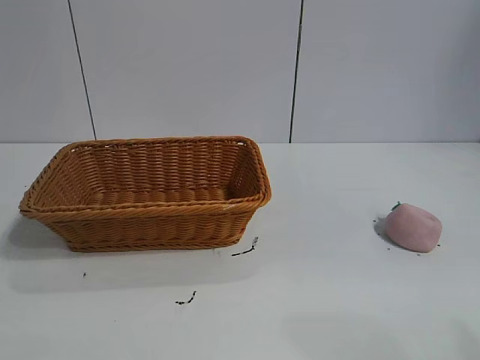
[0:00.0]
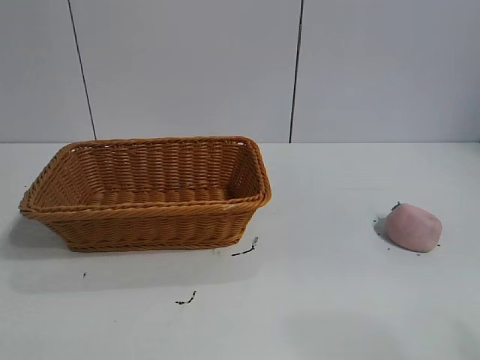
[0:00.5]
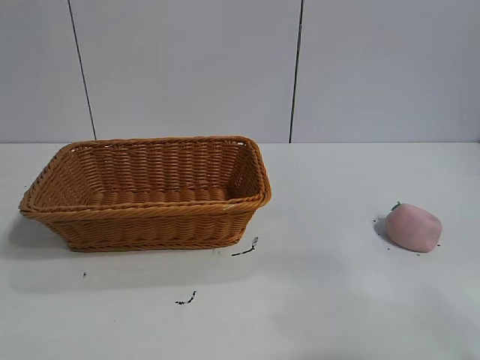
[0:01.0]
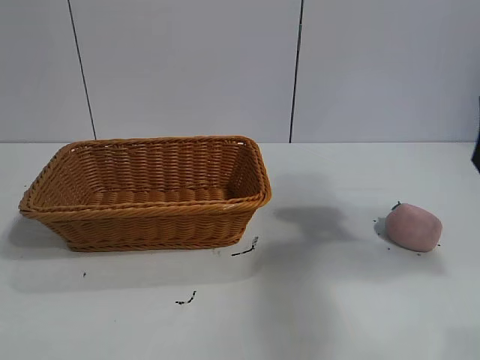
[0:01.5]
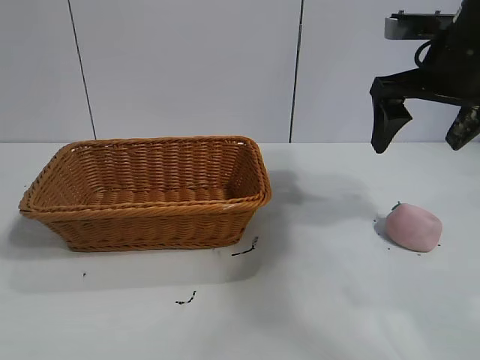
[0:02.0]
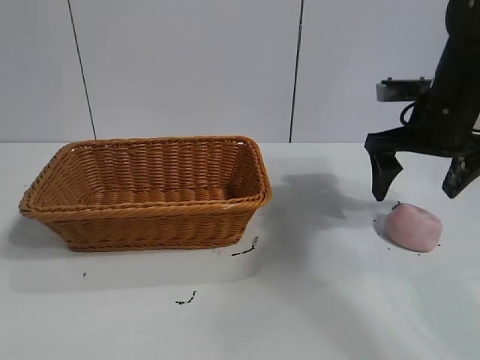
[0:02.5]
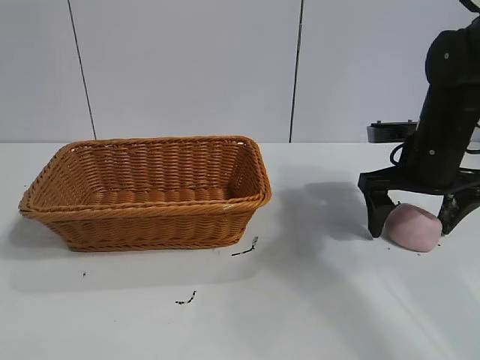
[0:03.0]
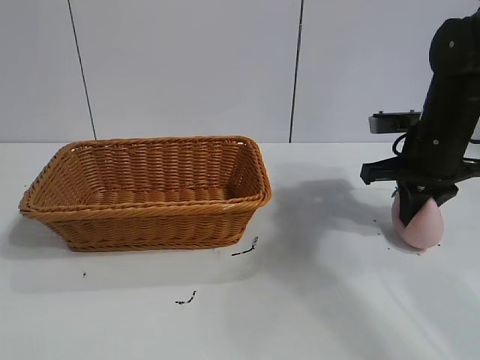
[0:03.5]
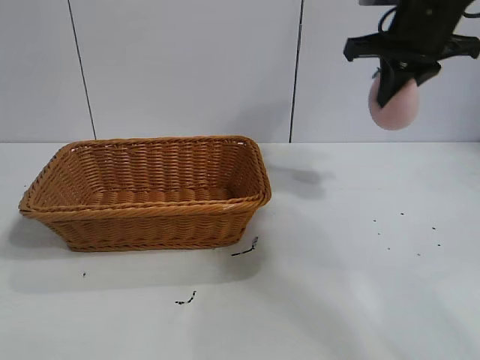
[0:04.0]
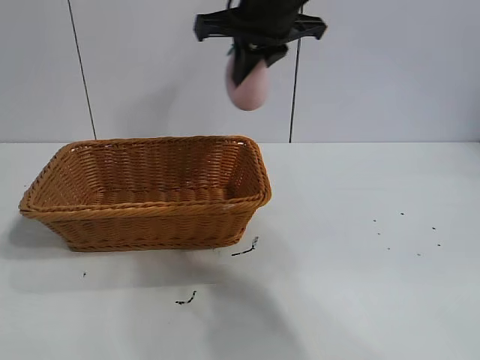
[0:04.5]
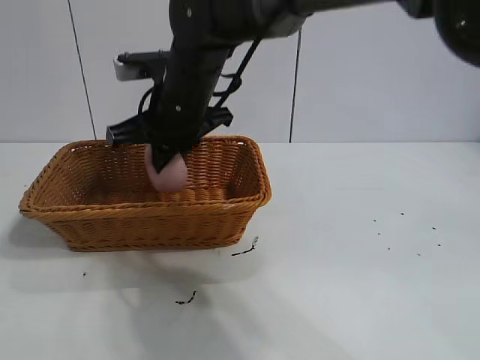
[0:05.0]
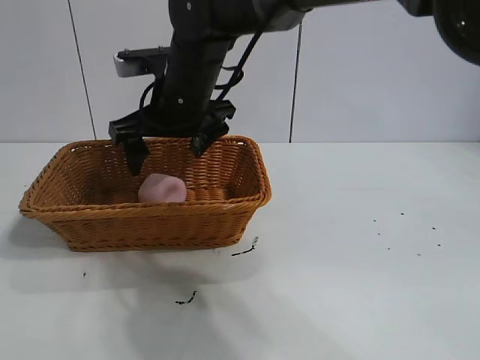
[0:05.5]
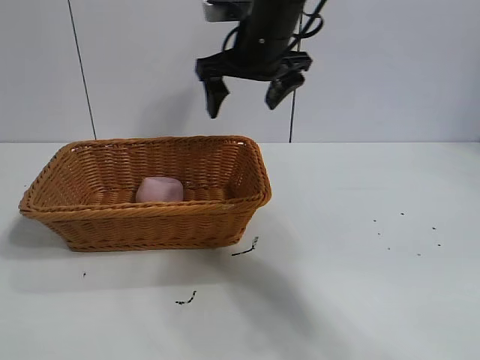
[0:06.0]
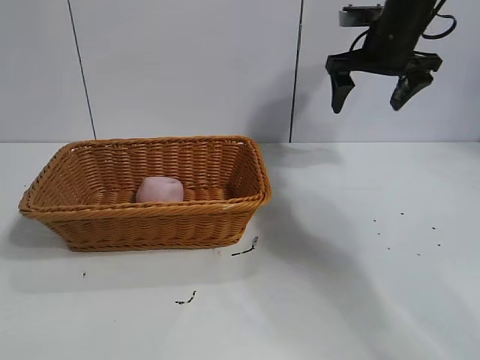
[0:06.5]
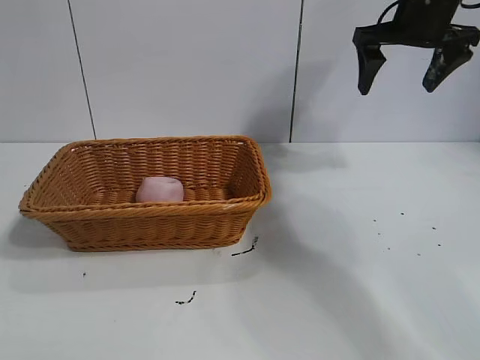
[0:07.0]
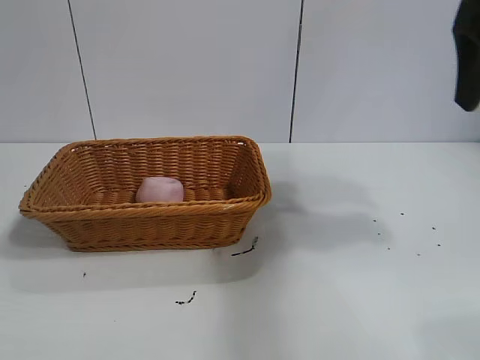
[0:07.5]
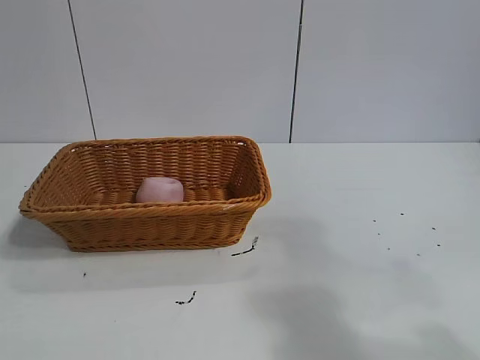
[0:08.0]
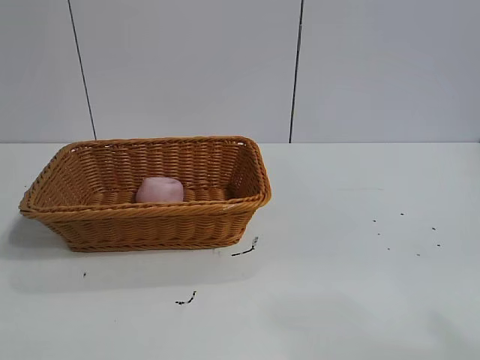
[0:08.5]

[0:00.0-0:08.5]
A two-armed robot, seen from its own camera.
Task of the whole recording: pick up the peach and put it into the basket.
Step, 0:01.0 to 0:03.0: Grasp the peach with right gripper.
Step, 0:03.5 to 0:05.0: Place the peach in the basket with right gripper.

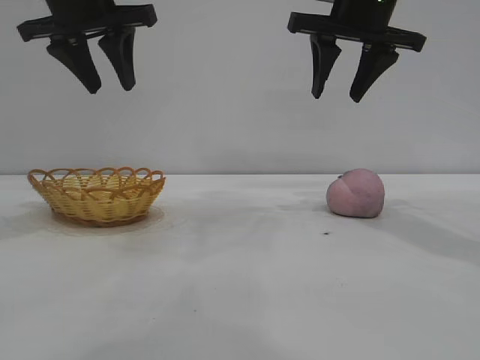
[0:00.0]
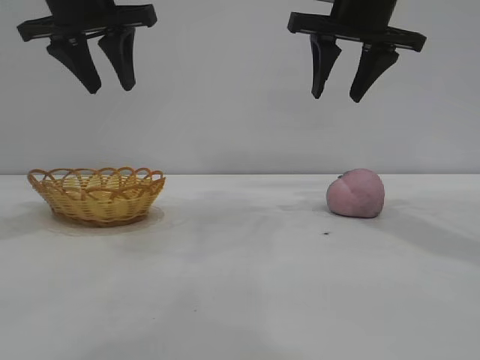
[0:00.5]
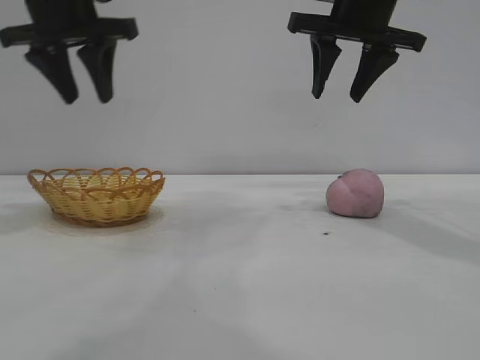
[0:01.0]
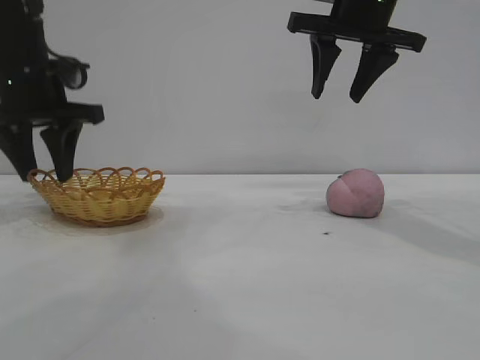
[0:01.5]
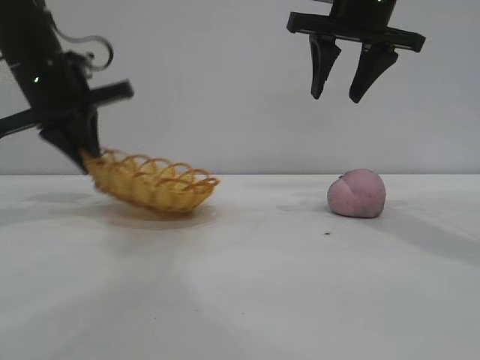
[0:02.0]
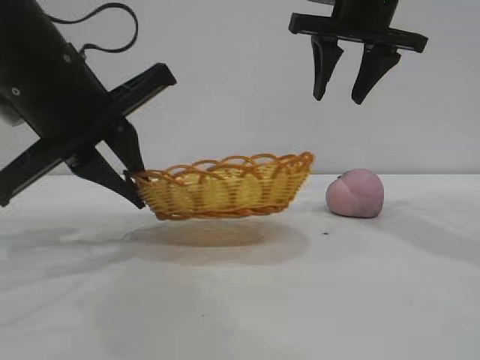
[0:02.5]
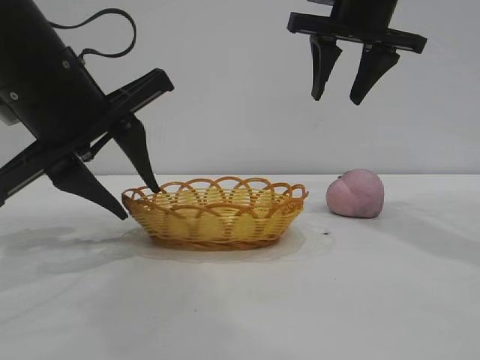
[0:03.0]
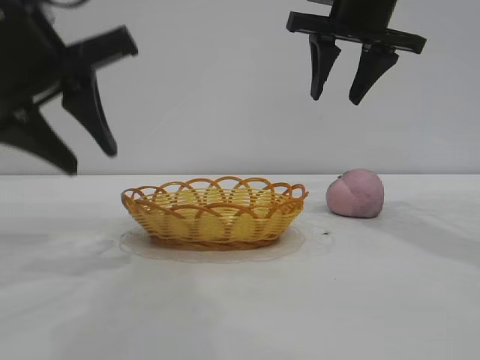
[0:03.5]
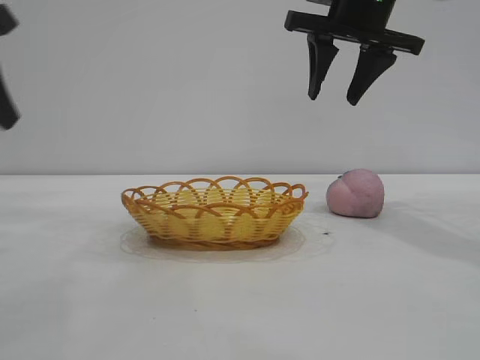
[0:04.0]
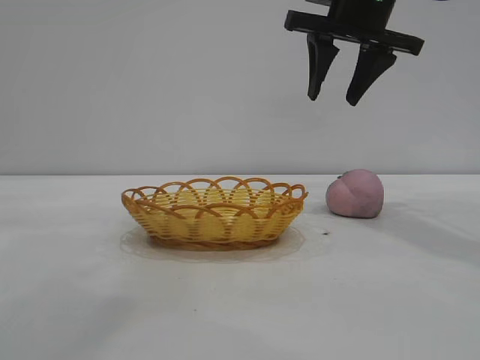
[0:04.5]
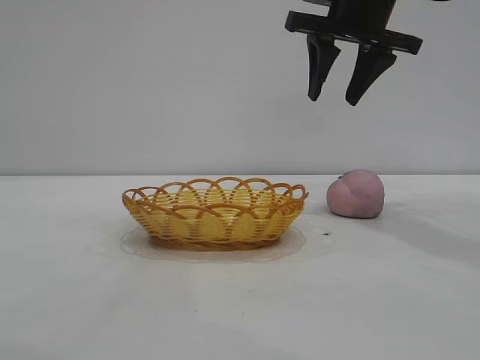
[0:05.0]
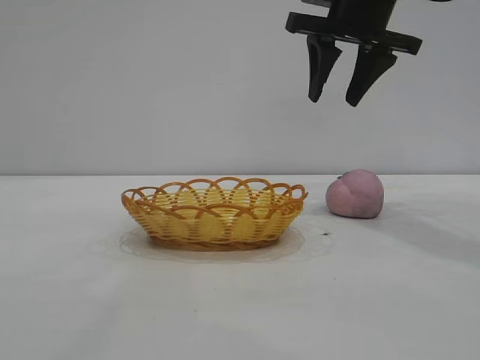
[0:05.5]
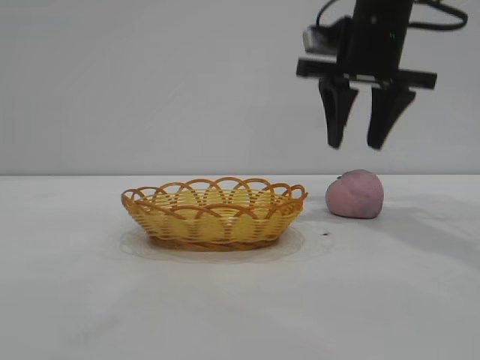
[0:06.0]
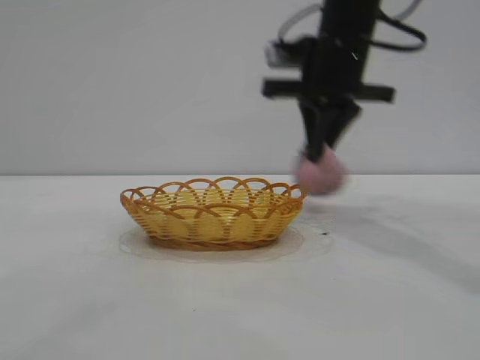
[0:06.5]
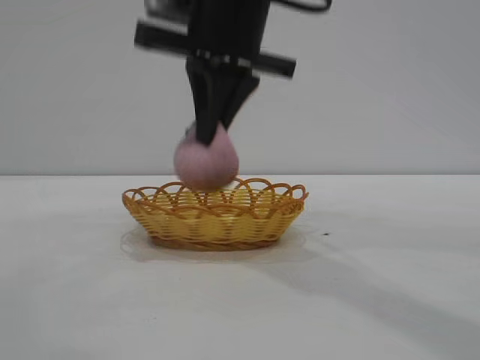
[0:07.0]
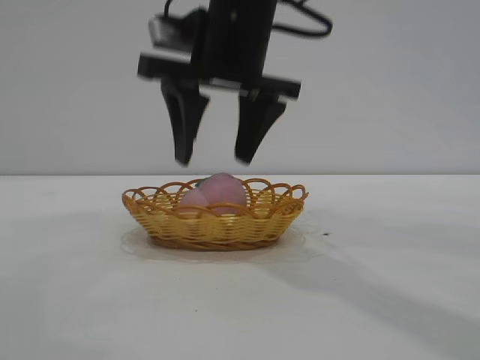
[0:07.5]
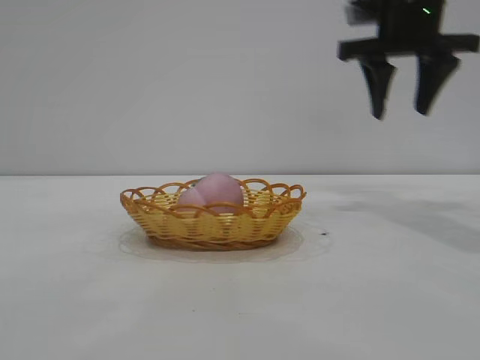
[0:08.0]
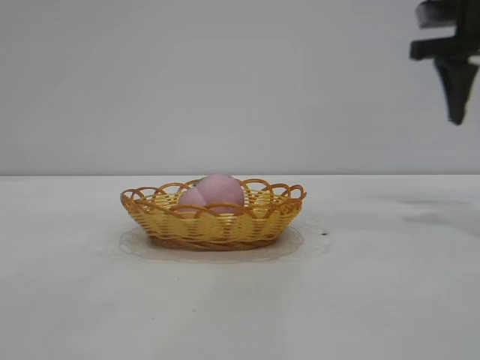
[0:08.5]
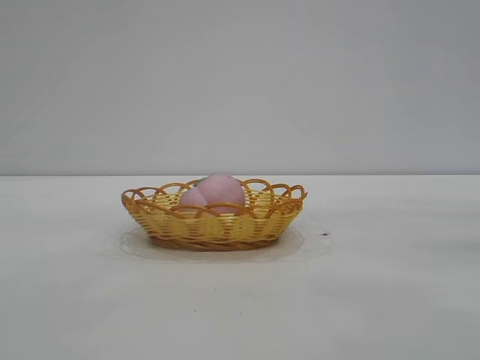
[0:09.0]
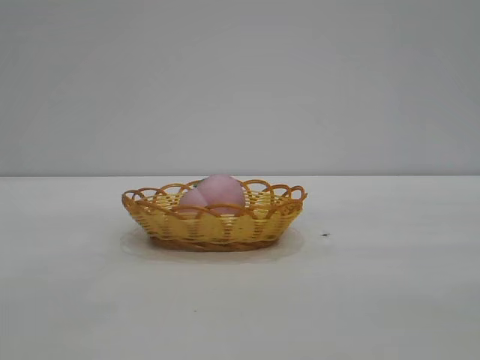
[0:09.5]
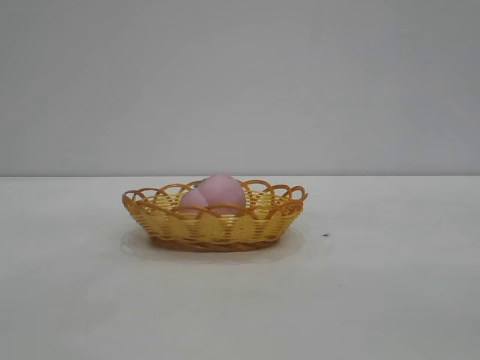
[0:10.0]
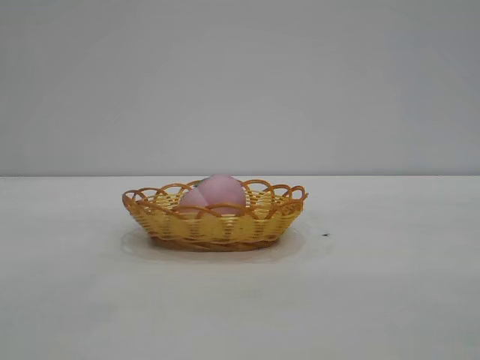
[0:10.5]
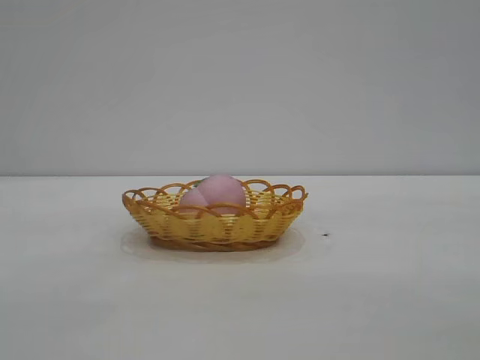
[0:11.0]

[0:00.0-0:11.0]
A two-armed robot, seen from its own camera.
Task of the whole recording: pick up the peach and put it into the basket.
Step, 0:00.0 to 0:03.0: Move the basket to the center of view.
Step, 0:04.0 to 0:06.0: Pick up the peach.
Step, 0:06.5 to 0:07.5: place the peach into the basket.
